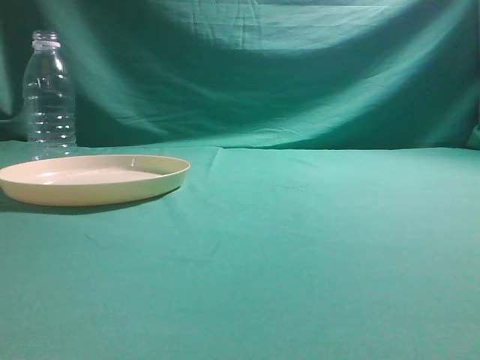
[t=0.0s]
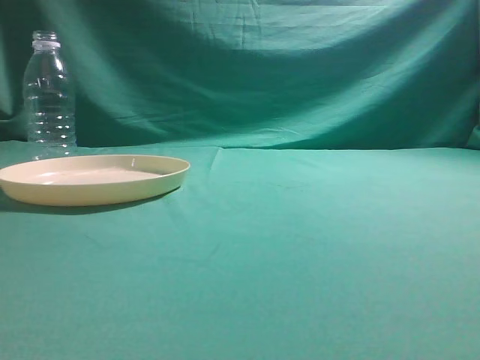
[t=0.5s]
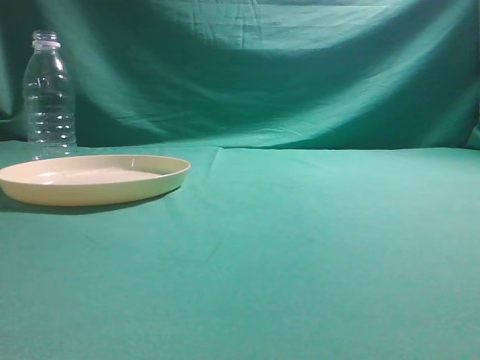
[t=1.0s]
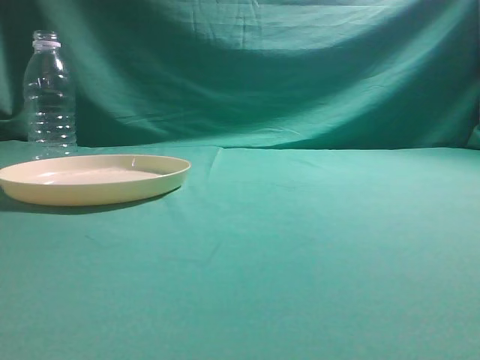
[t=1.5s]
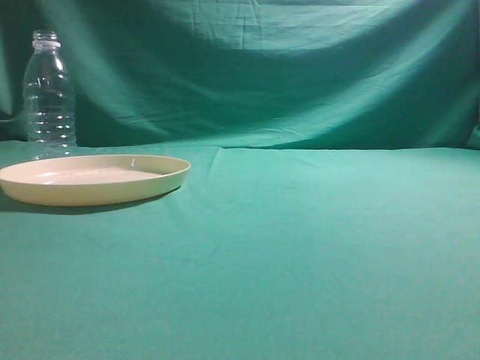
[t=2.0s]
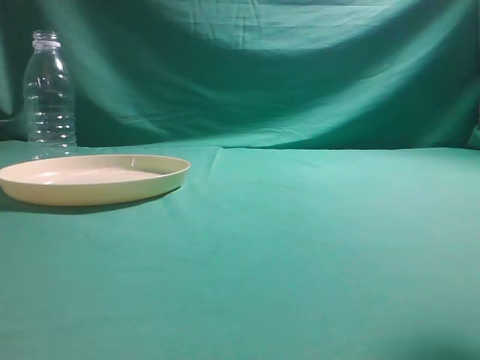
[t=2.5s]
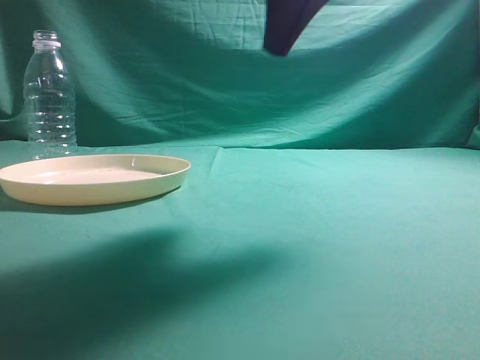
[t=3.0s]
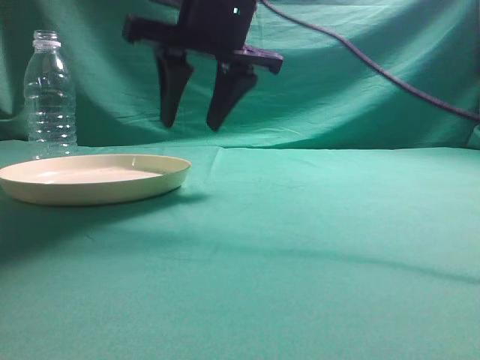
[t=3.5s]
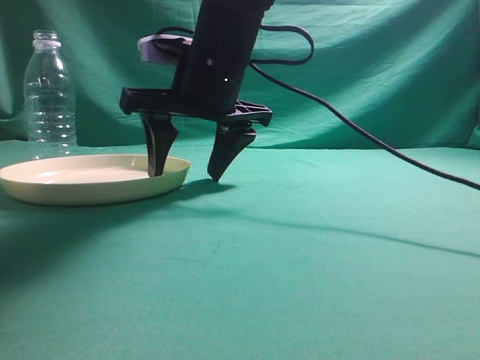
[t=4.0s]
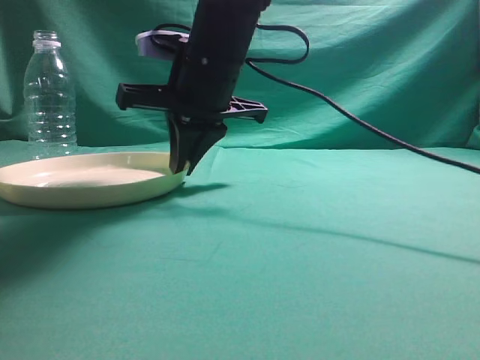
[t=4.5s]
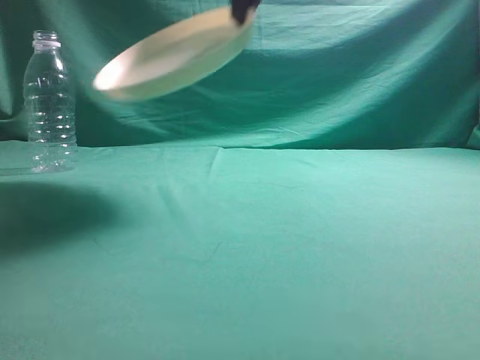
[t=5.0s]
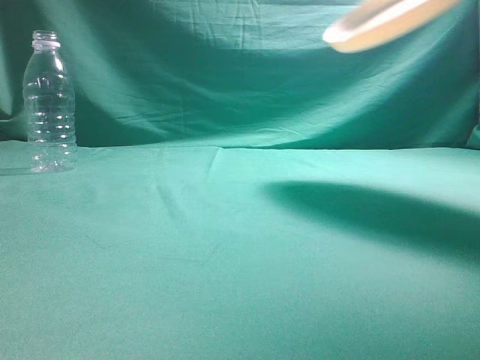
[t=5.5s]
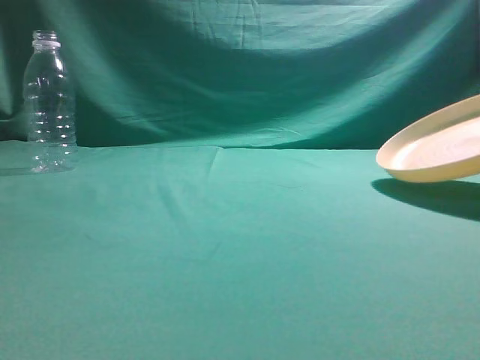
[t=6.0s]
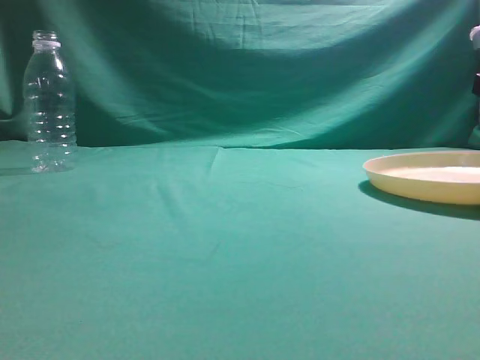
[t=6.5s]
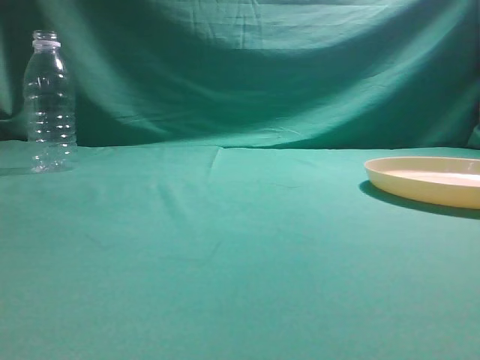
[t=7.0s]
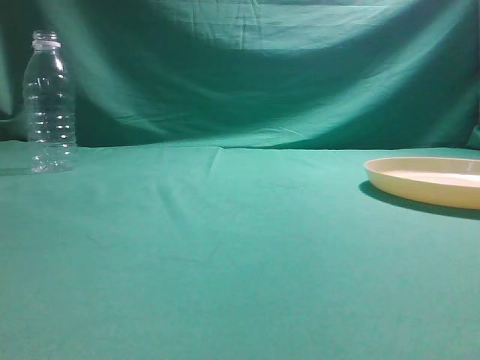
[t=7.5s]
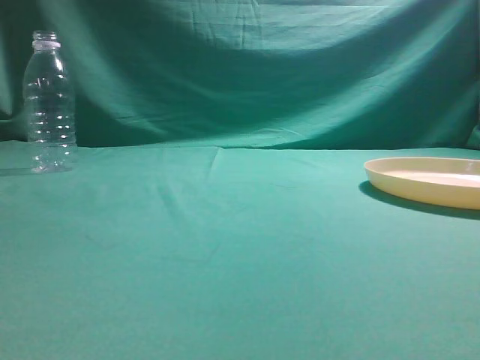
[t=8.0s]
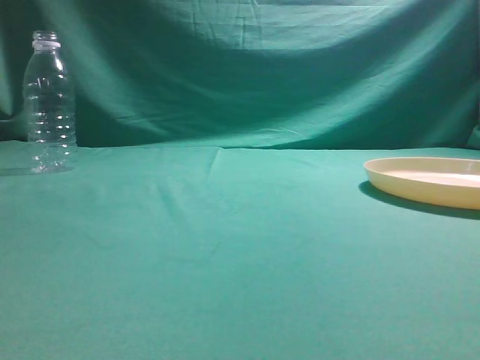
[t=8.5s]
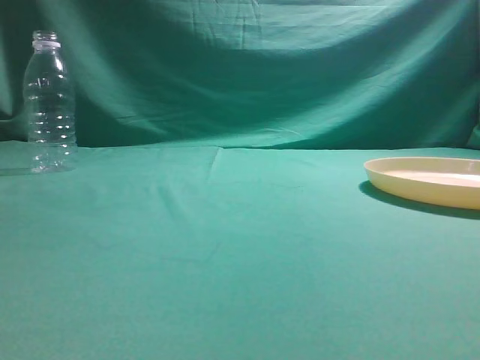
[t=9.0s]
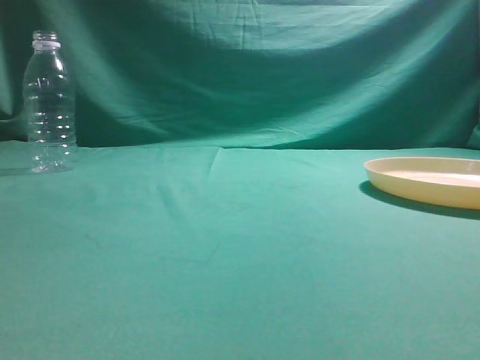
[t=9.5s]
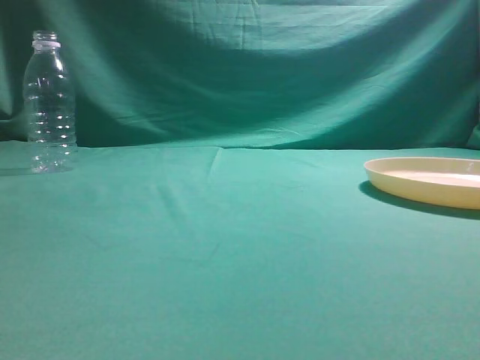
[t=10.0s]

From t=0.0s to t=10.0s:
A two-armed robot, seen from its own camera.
Step, from t=0.0s to t=4.5s: Pick the container that can hold fruits.
Step, from t=5.0s to t=6.5s: Move the picked object to the right side of the table.
From t=2.0s to t=4.0s: The right gripper shifts some 40 cm to the left, forward and downward, and opens up.
From t=4.0s to t=6.0s: The right gripper shifts some 30 cm to the right, and closes up.
From t=6.0s to t=8.0s: The right gripper is displaced backward and upward by some 30 cm, and opens, then closes again.
